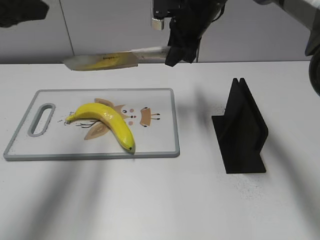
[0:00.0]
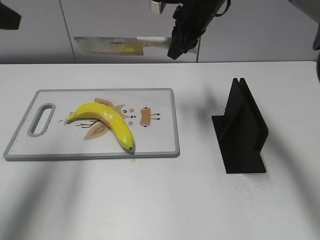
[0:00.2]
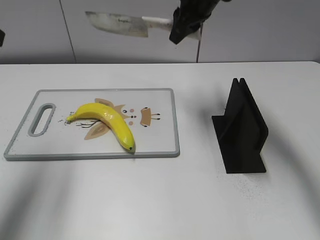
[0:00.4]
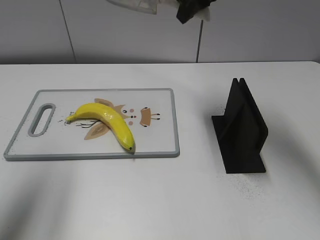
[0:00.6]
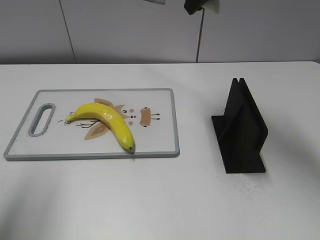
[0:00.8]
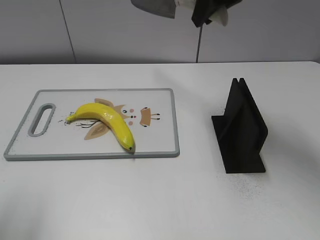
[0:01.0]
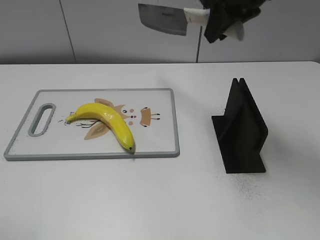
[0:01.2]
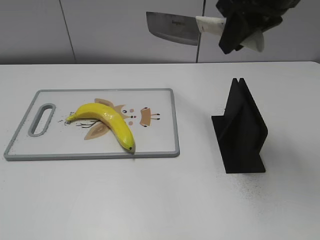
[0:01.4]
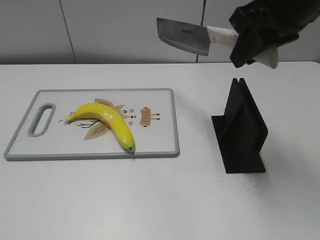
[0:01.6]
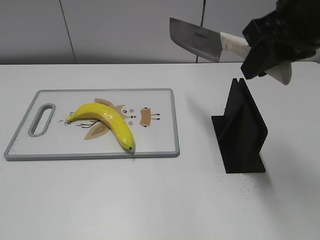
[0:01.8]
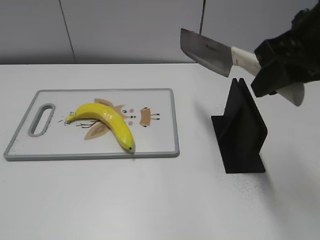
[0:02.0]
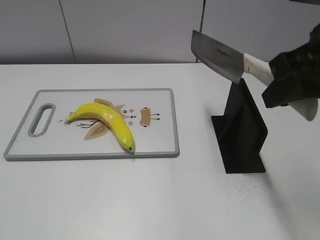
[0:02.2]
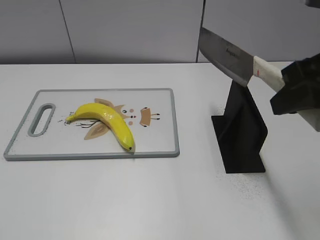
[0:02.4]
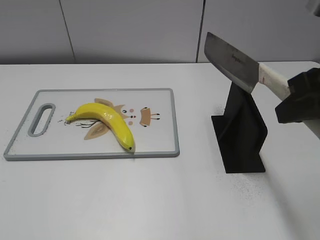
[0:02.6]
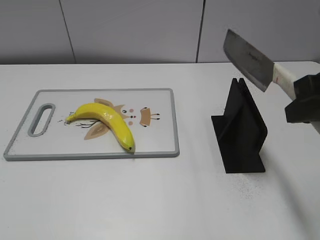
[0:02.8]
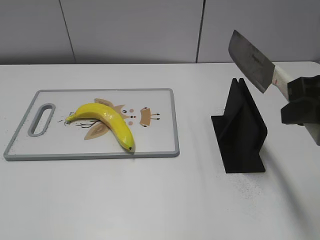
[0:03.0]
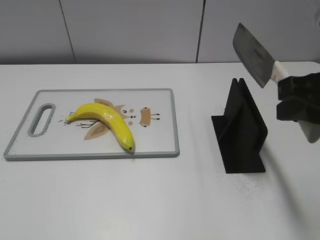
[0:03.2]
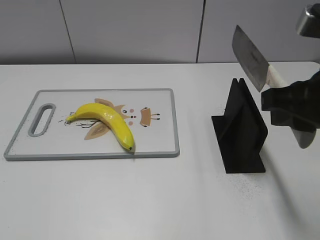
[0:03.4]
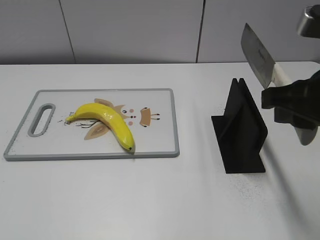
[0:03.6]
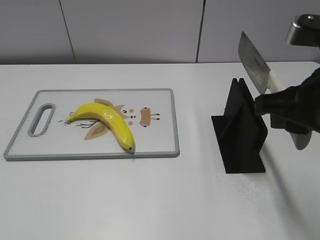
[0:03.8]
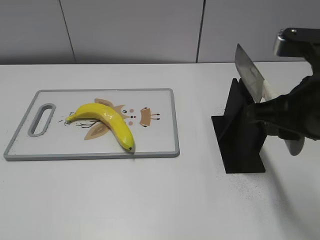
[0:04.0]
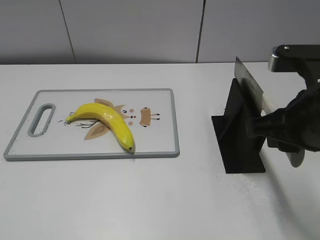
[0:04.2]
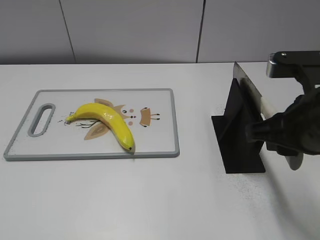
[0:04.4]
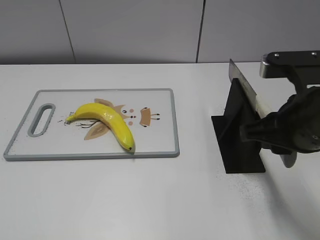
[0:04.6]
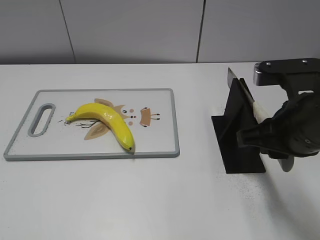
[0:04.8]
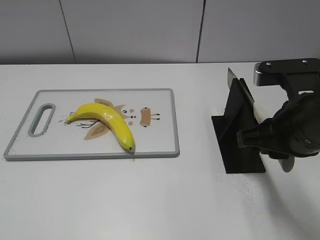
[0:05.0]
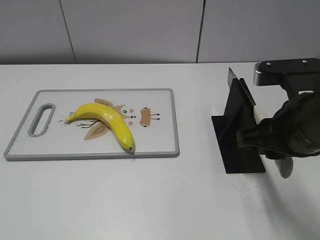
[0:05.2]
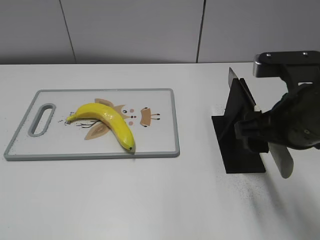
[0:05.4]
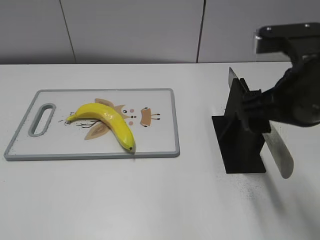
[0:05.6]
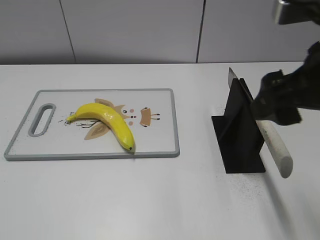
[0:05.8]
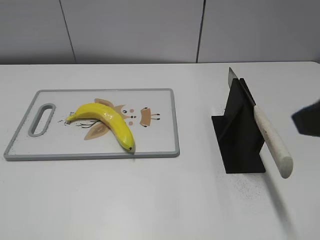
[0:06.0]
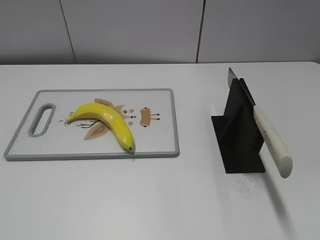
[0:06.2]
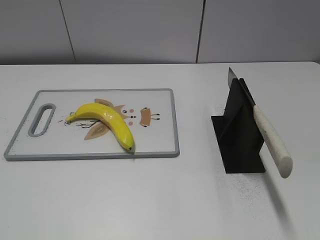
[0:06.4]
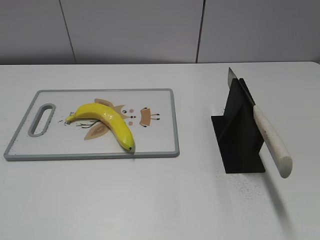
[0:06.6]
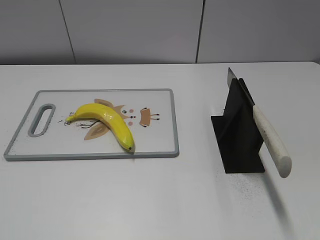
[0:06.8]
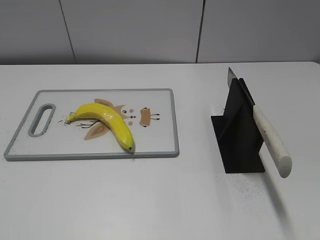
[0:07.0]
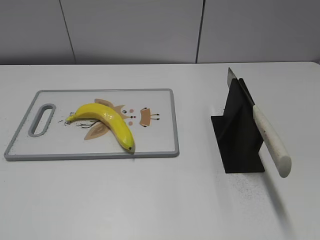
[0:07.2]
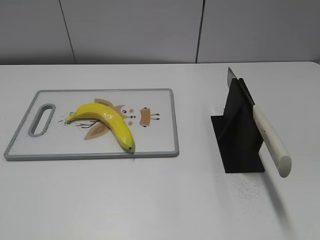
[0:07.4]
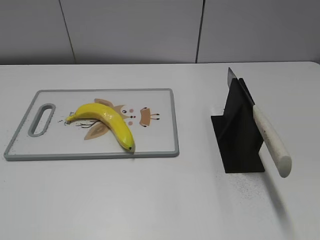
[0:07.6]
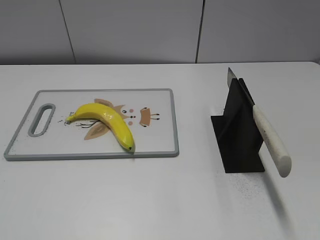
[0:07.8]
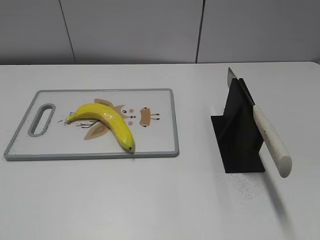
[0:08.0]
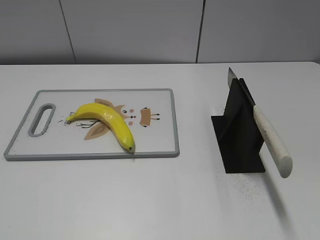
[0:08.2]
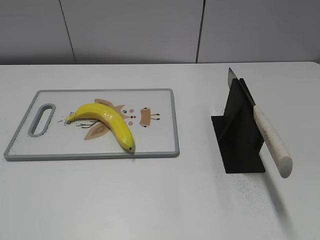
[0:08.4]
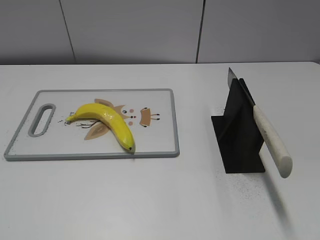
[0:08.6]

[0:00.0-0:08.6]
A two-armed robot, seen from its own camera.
Task of the whole recording: cut plastic banana.
Step, 0:00.8 to 0:01.4: Lift the knife with your right hand.
Step, 0:01.8 to 0:08.6: Place the knife on the storage rack with your right hand.
0:00.0 to 0:01.4: The left gripper shifts about 25 cm backward, while the right gripper shifts about 20 cm backward, upward and to the right.
0:01.4 to 0:02.8: The right gripper shifts roughly 15 cm backward and to the right. The left gripper is displaced backward by approximately 5 cm.
0:02.8 to 0:04.4: The right gripper travels downward by roughly 5 cm.
0:04.4 to 0:05.8: The right gripper travels upward by some 5 cm, and opens its fingers.
0:05.8 to 0:07.2: The right gripper goes about 25 cm backward and to the right.
